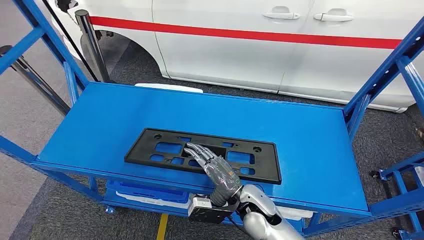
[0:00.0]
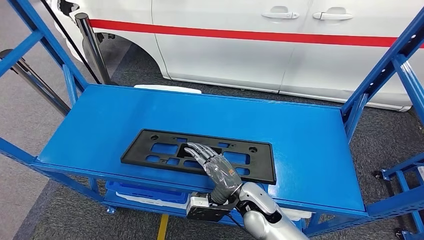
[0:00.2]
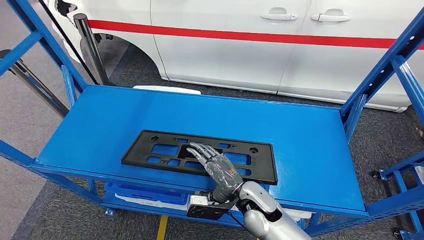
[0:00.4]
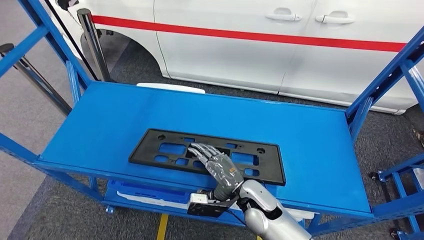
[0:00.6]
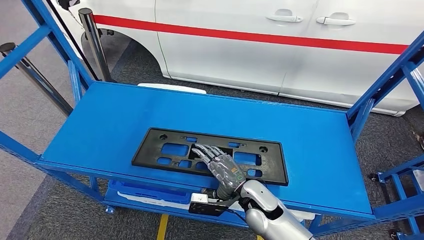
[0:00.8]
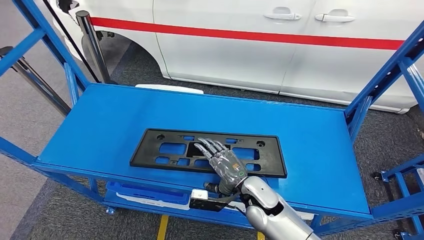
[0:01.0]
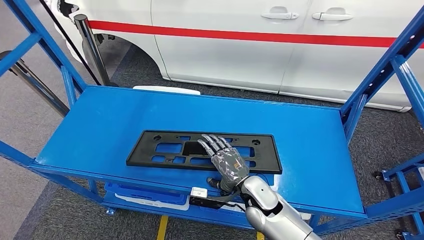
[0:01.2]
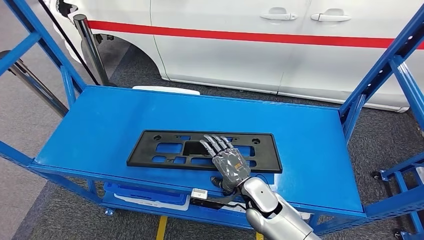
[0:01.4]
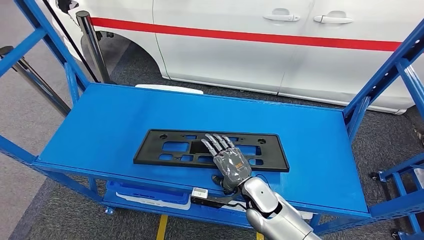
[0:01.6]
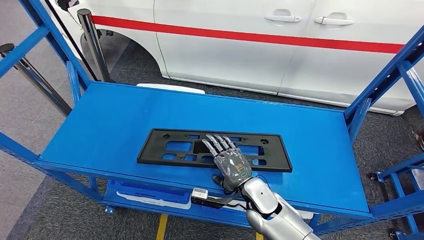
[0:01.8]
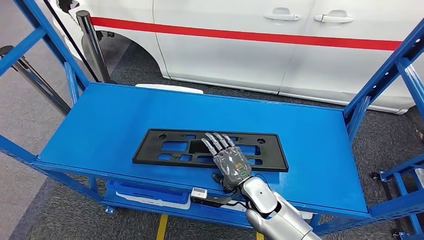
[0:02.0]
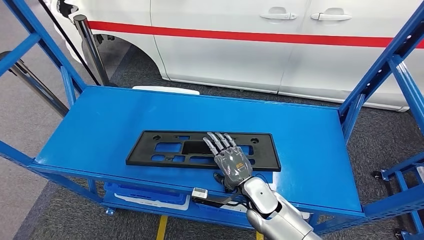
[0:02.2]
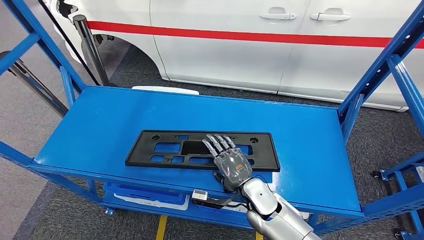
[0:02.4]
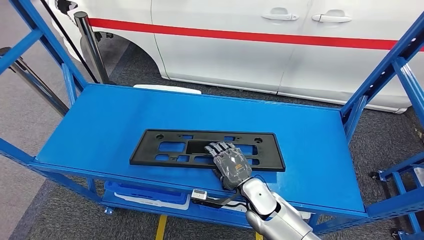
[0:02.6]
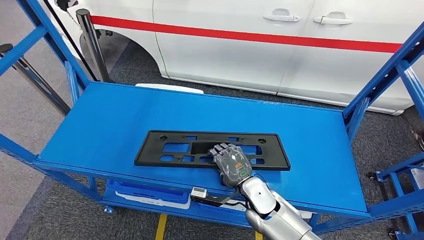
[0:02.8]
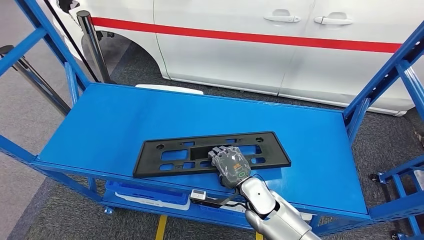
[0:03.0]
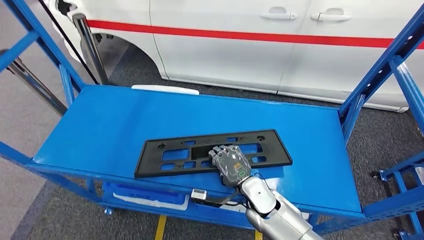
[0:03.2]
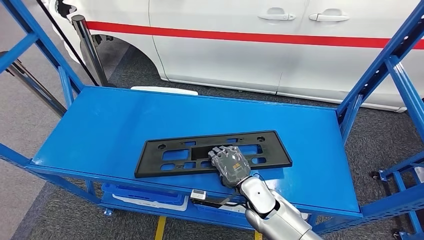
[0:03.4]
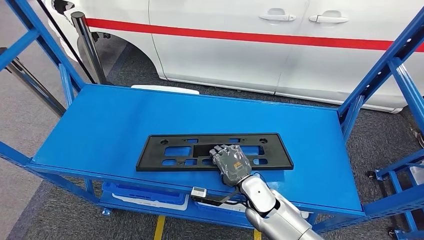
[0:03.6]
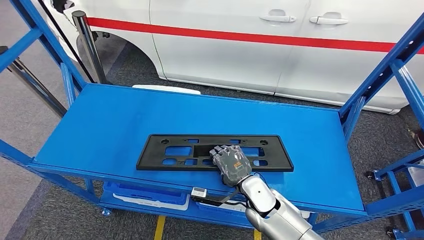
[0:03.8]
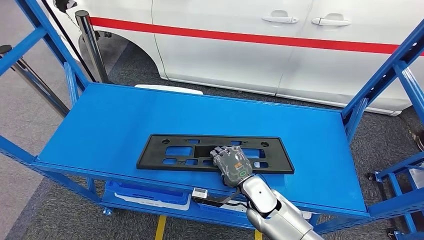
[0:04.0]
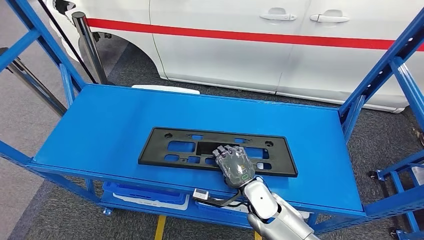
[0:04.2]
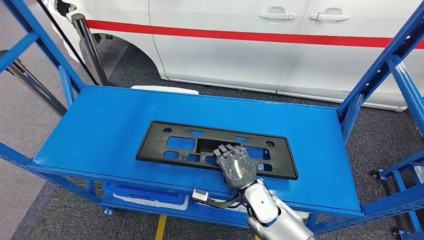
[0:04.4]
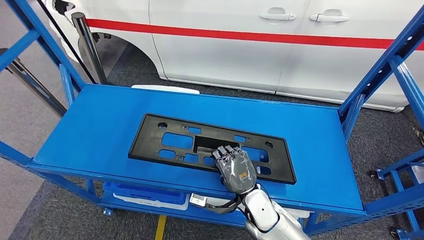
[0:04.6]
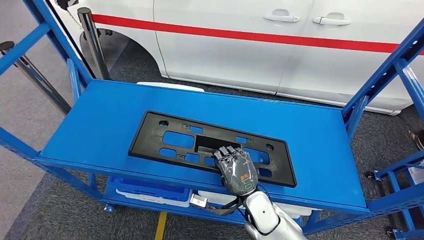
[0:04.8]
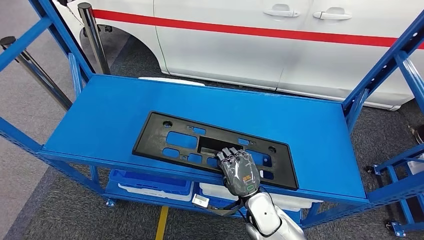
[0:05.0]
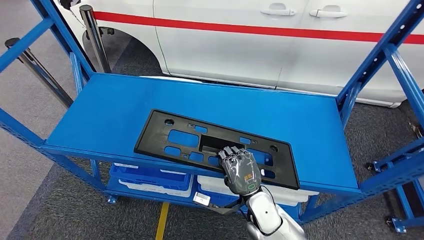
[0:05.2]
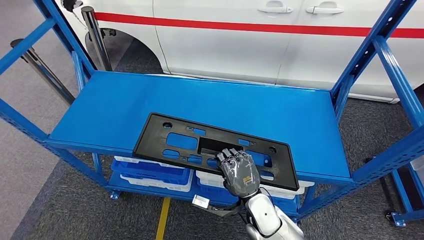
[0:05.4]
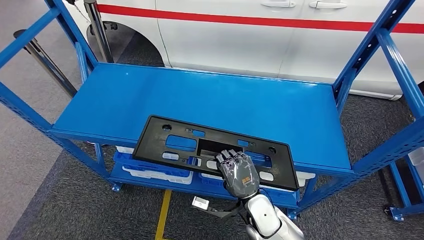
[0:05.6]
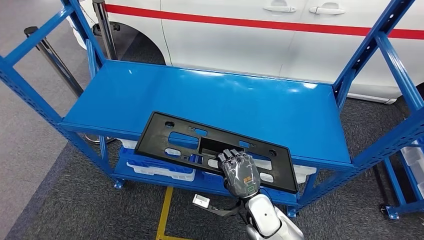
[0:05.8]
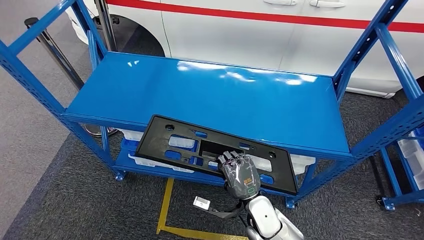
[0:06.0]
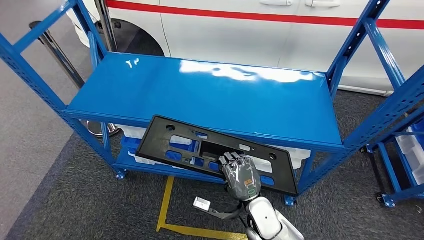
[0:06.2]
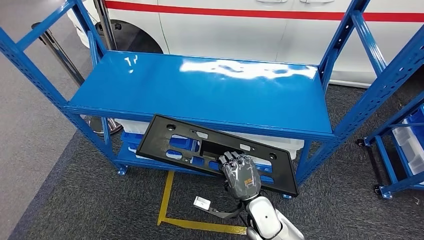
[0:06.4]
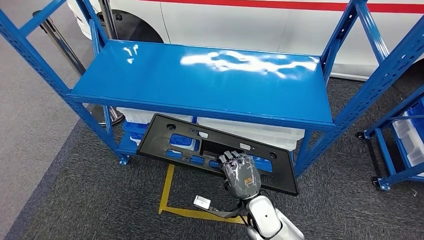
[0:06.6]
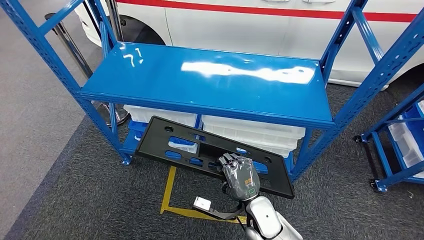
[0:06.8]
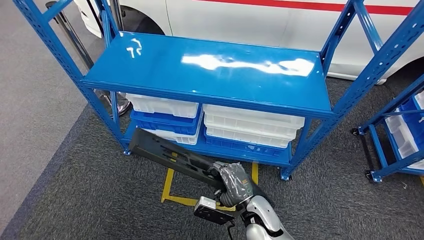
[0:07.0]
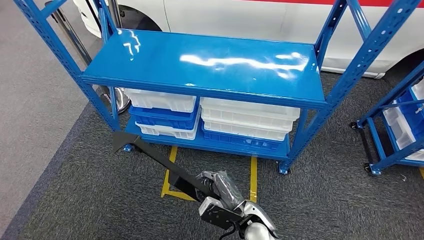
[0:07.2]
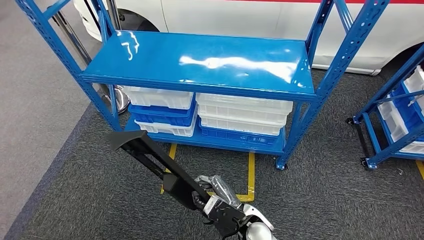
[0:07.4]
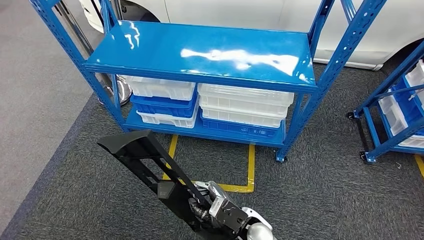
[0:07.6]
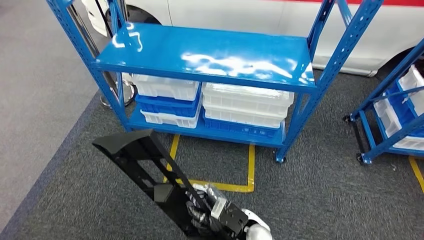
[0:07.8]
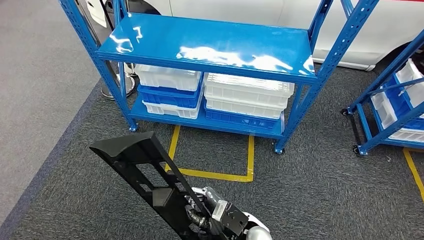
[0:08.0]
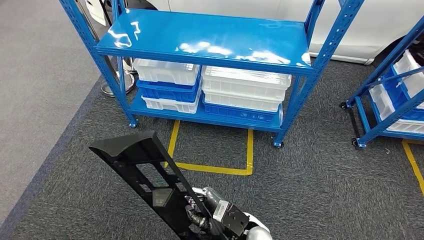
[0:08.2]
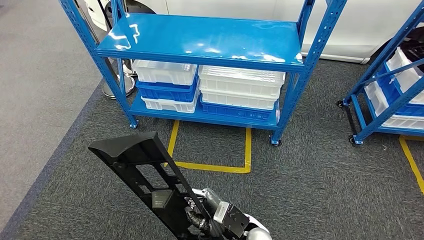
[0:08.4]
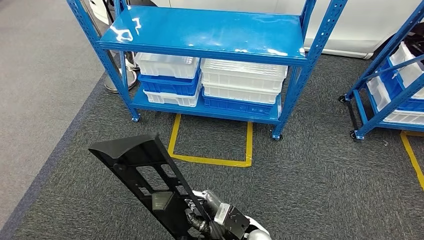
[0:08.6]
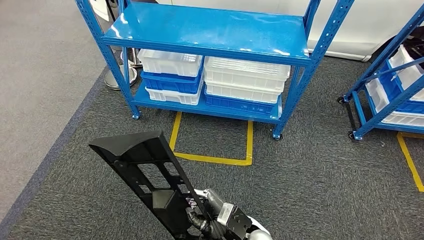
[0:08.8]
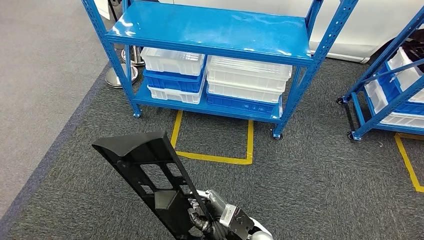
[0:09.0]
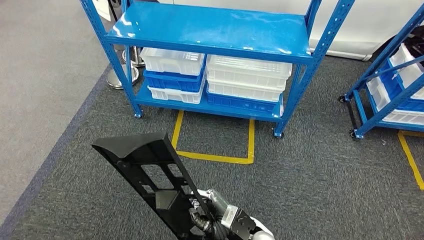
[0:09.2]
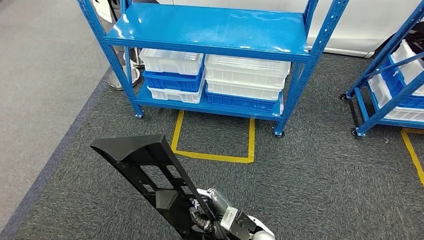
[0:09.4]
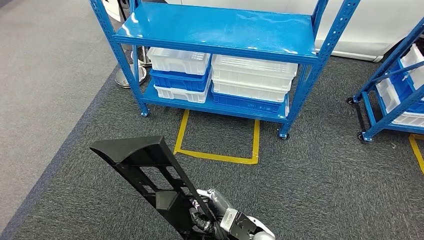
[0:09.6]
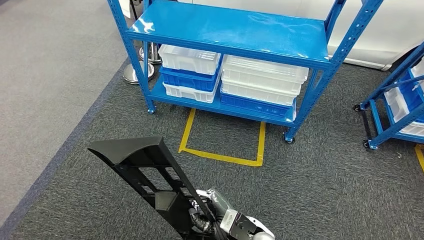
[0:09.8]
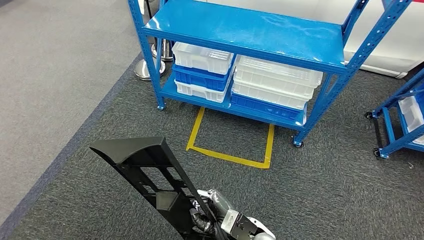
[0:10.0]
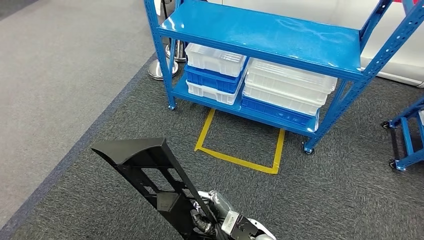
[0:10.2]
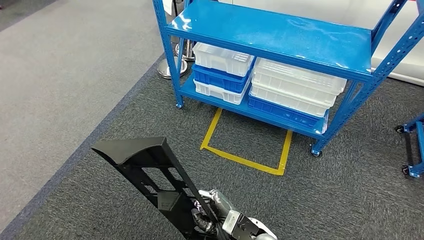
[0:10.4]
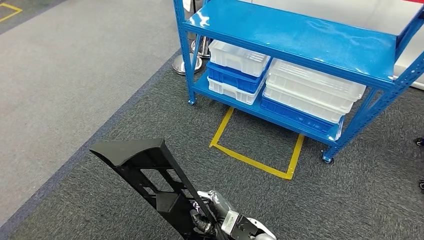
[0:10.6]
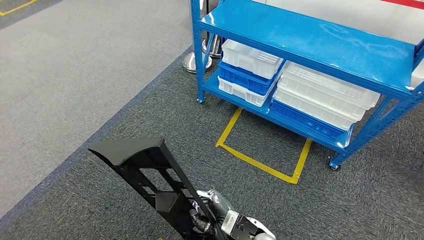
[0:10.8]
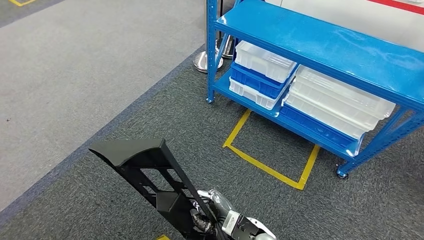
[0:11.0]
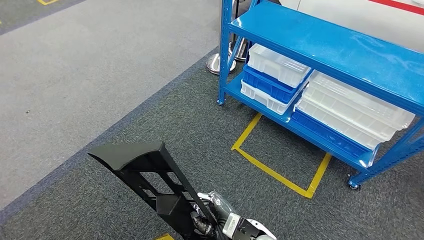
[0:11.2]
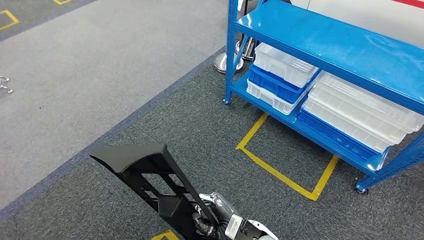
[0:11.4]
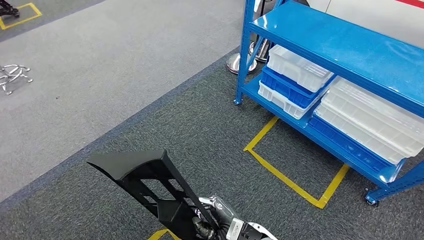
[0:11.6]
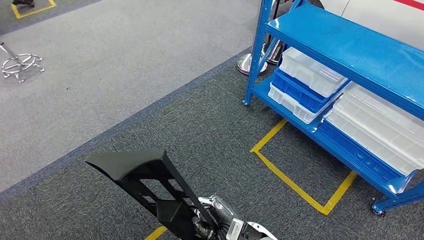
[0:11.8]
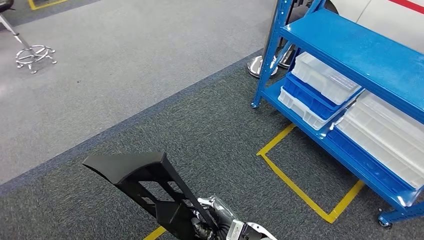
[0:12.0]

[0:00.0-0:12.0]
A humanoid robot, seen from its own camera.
Step, 0:00.0 to 0:06.4: Pick up the large material from the shelf.
0:01.6 to 0:03.0: The hands make only small movements.

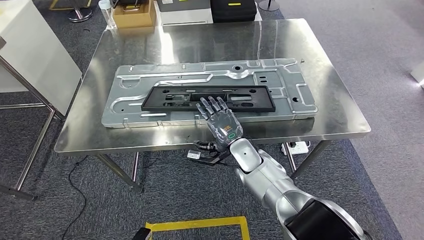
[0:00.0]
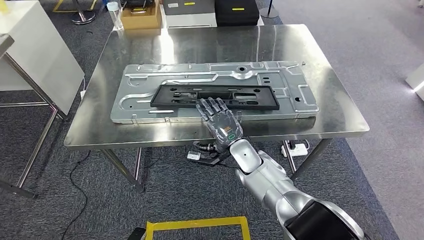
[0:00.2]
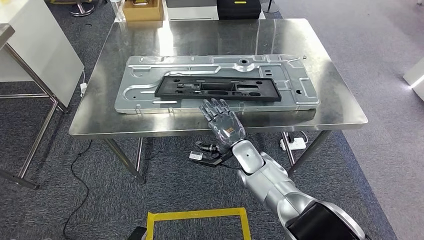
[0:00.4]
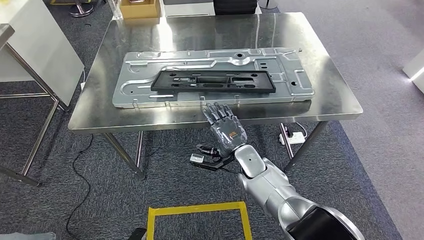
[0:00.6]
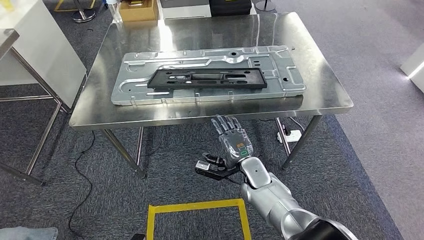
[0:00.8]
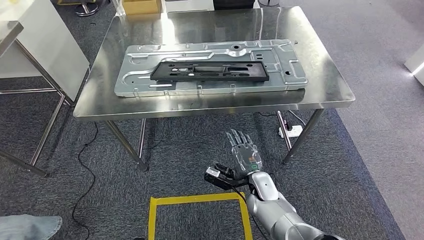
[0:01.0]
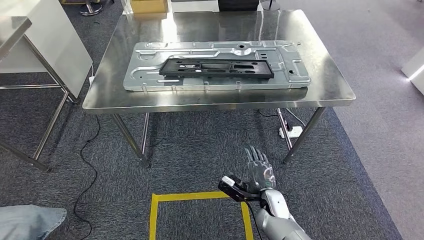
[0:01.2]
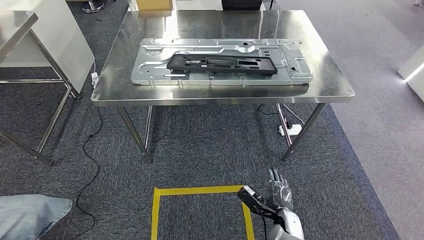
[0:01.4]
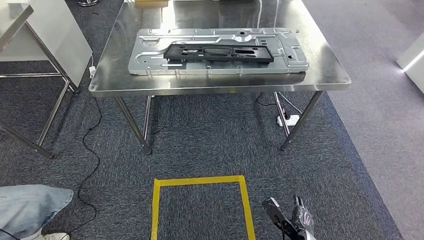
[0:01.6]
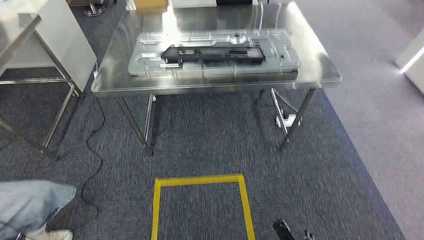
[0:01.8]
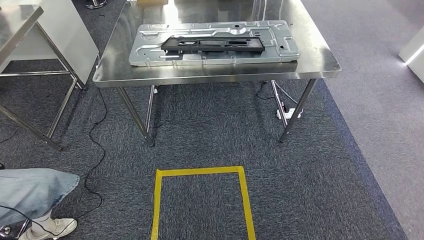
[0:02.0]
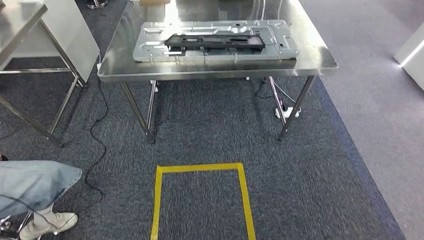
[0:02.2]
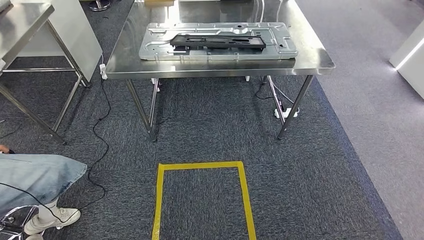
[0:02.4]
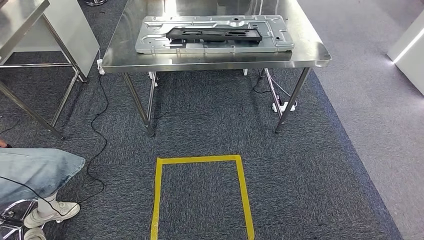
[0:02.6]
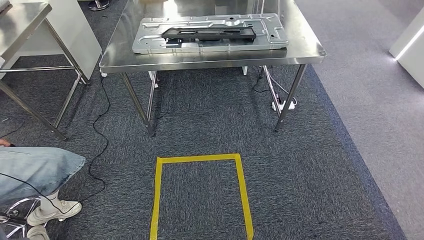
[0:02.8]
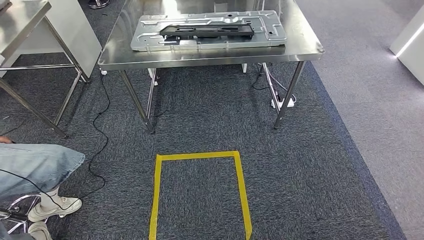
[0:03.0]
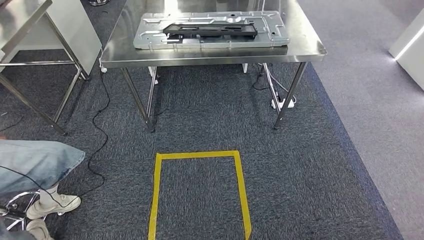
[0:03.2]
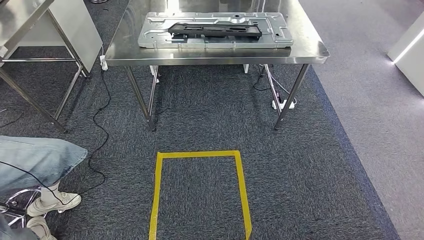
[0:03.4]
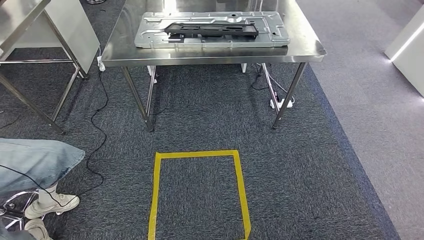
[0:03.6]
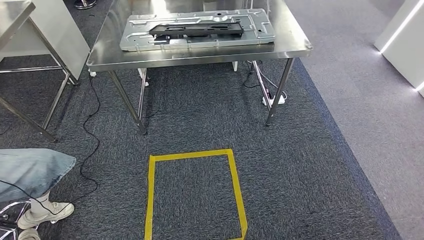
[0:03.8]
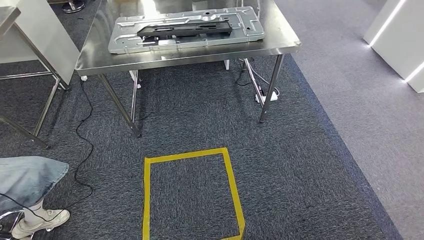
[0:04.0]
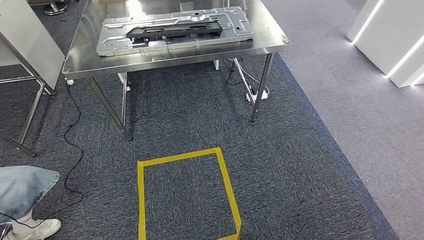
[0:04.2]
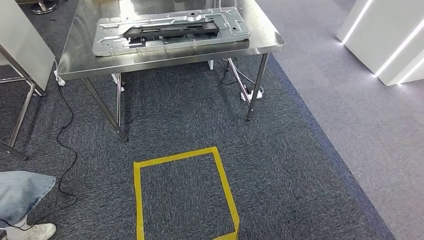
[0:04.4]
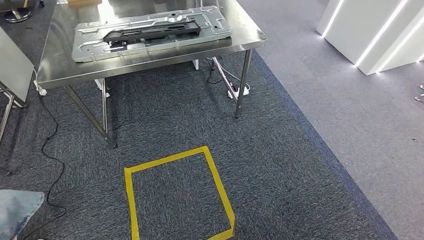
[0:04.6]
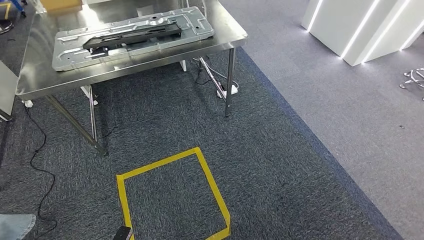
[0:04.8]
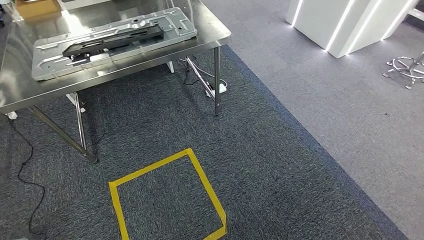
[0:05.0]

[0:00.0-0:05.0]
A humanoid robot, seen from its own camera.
Step, 0:02.4 to 0:05.0: Move to the initial position of the shelf.
